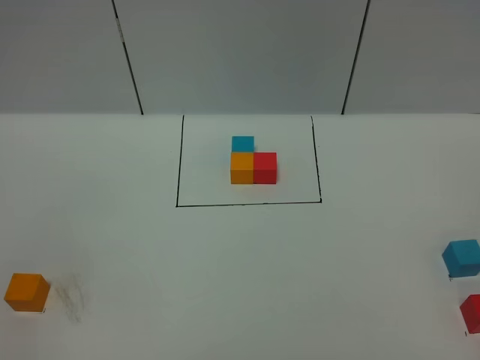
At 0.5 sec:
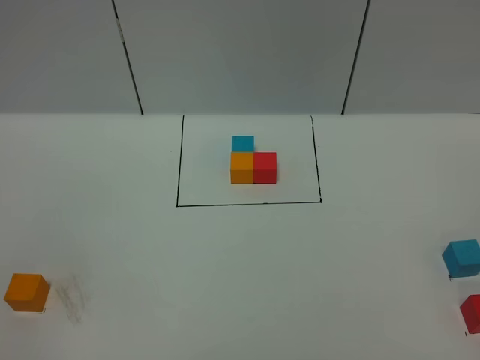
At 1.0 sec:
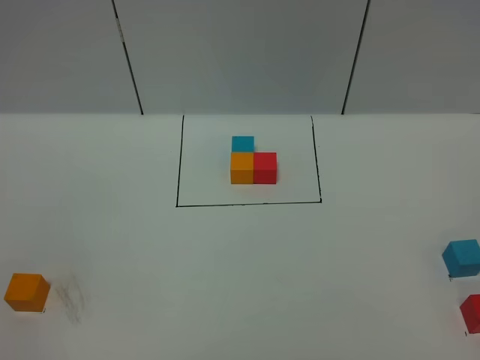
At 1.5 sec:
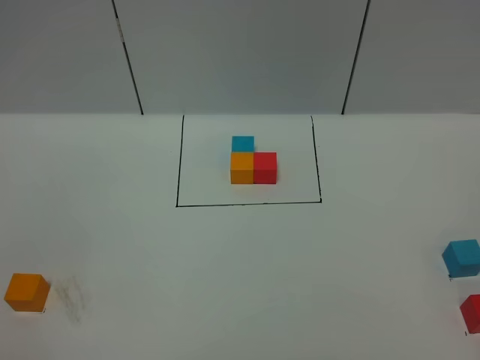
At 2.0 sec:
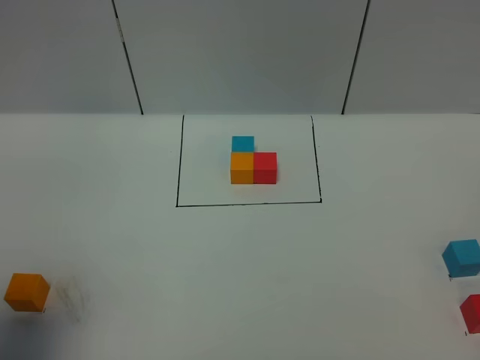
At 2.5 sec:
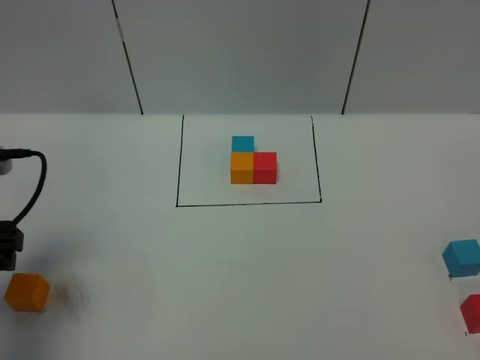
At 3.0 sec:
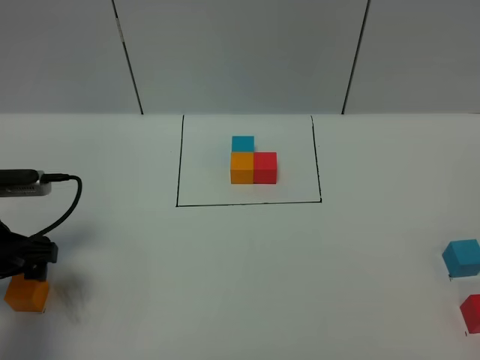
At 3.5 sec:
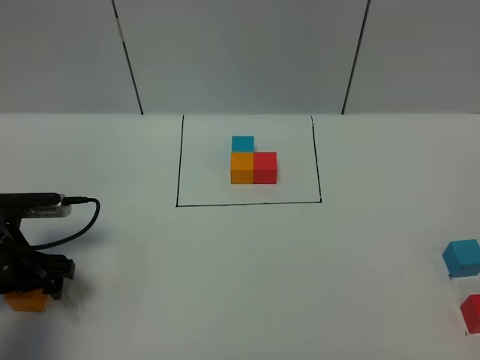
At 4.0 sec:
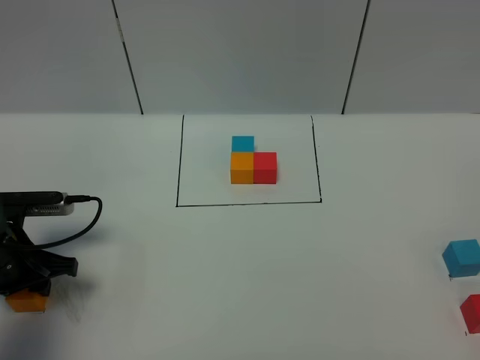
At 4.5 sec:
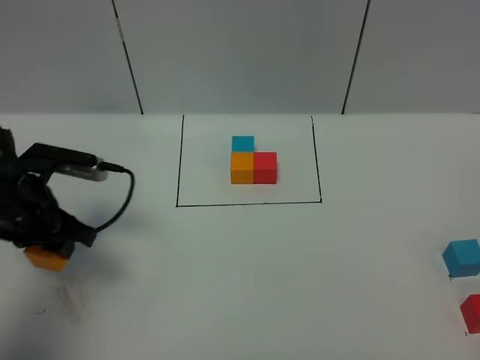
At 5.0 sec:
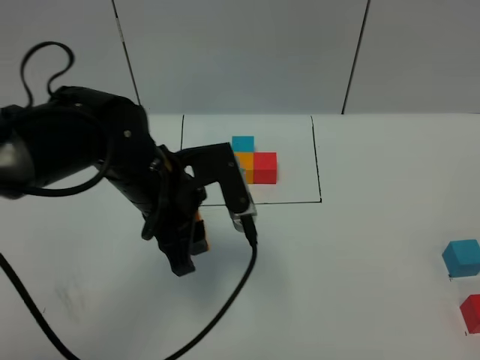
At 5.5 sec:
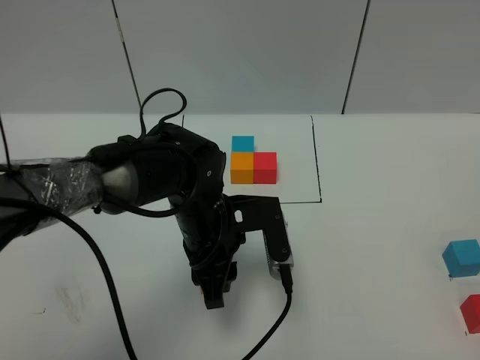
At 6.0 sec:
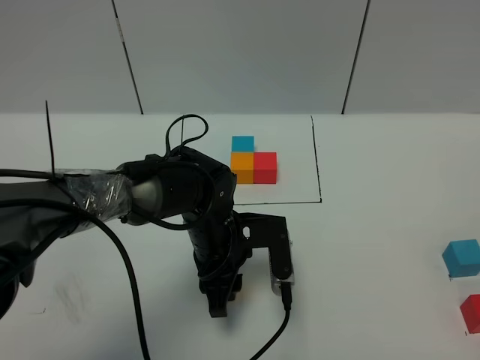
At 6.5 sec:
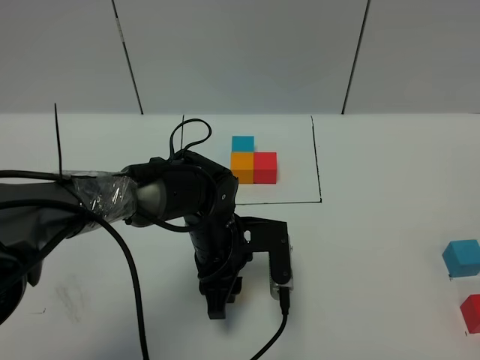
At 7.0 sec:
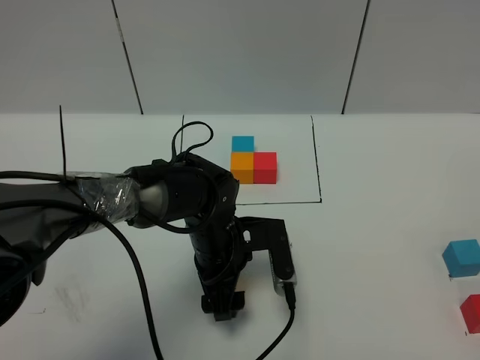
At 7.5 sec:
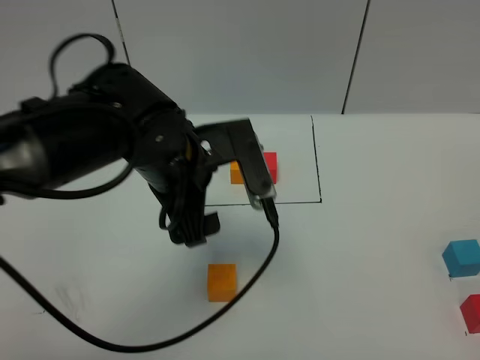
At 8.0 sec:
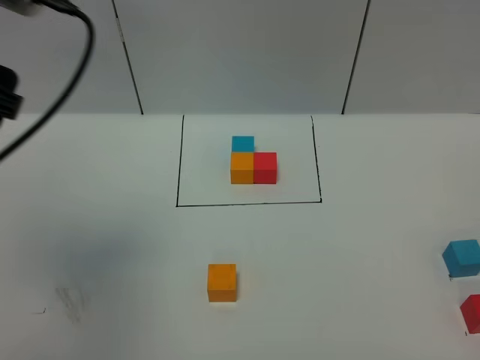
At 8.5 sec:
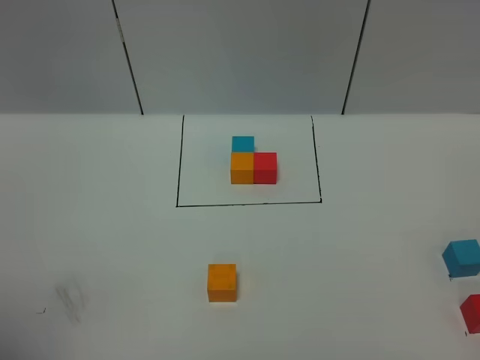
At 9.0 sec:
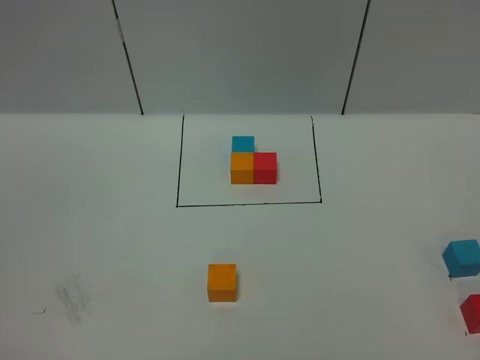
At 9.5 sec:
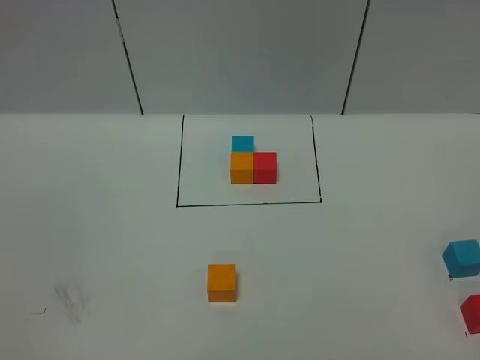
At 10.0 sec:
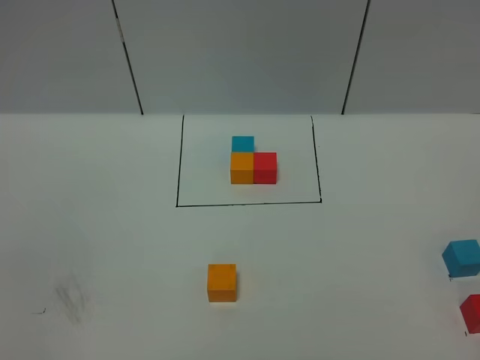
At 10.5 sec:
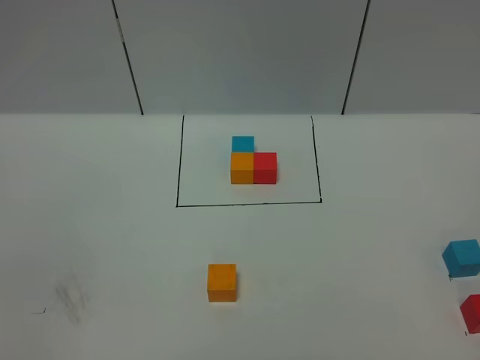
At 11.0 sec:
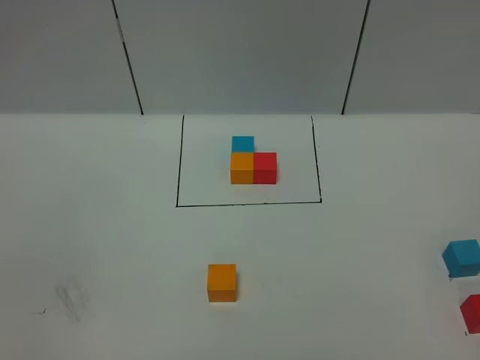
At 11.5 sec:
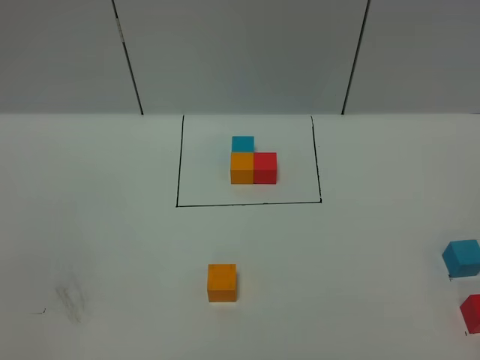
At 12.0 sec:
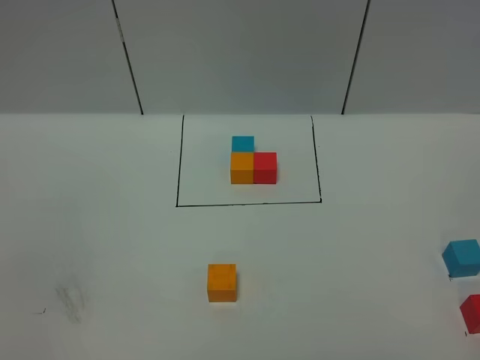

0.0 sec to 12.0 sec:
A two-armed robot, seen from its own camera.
Task of the whole recording: According to the building block template in front, assemble the scattered blocks together.
Step, 2.5 sec to 7.5 sec: Put the orange cube in the center of the table.
0.0 sec to 2.0 sec: The left gripper moves forward, about 15 cm, and opens up.
2.0 sec to 4.0 sec: The left gripper shifts about 25 cm downward and forward, and closes up.
4.0 sec to 6.0 sec: The left gripper goes some 25 cm to the right.
6.0 sec to 8.0 sec: The left gripper shifts about 35 cm upward and to the left, and opens up.
8.0 sec to 10.0 sec: The left gripper is displaced backward and downward by approximately 30 cm.

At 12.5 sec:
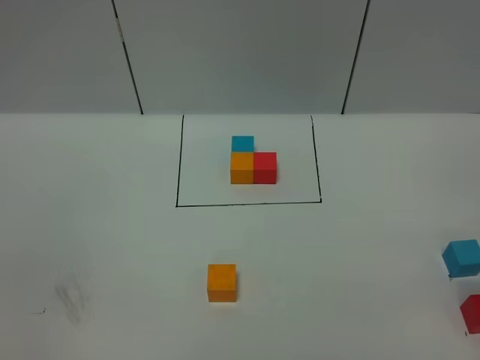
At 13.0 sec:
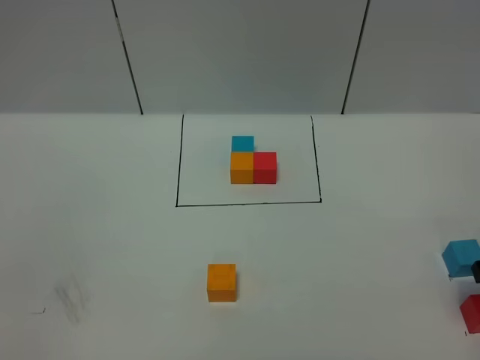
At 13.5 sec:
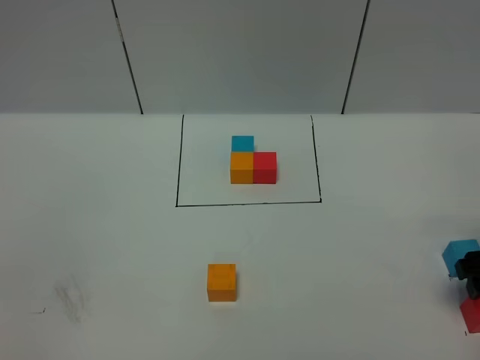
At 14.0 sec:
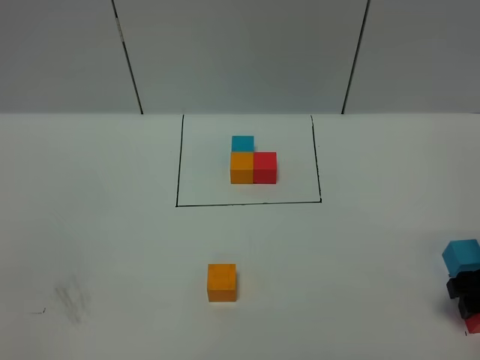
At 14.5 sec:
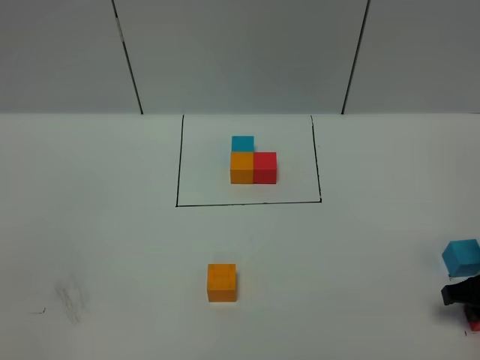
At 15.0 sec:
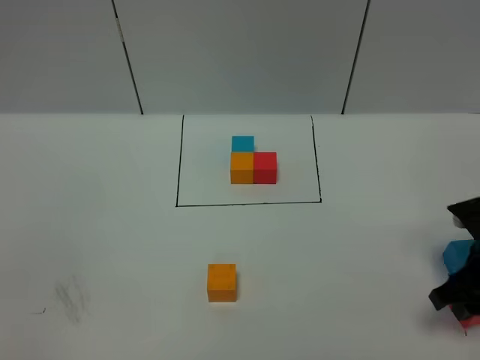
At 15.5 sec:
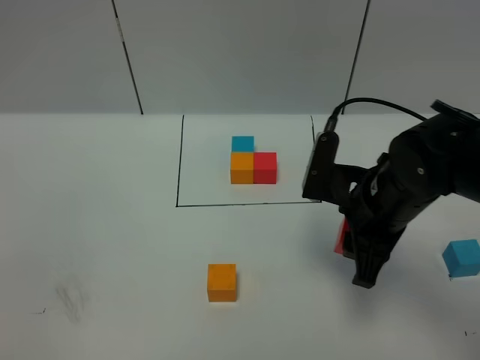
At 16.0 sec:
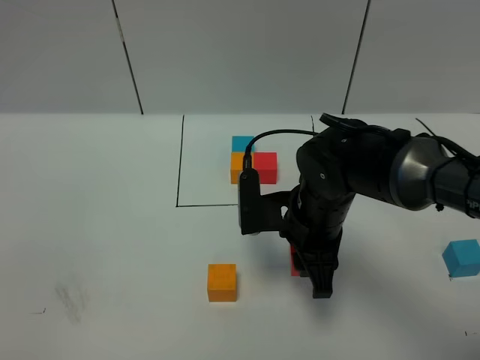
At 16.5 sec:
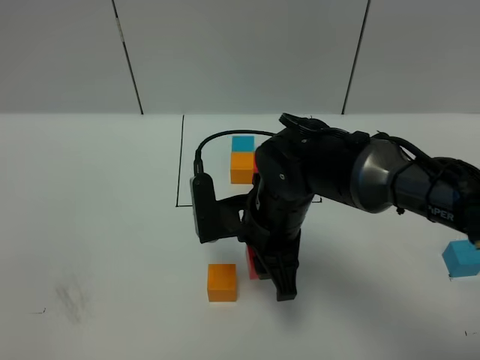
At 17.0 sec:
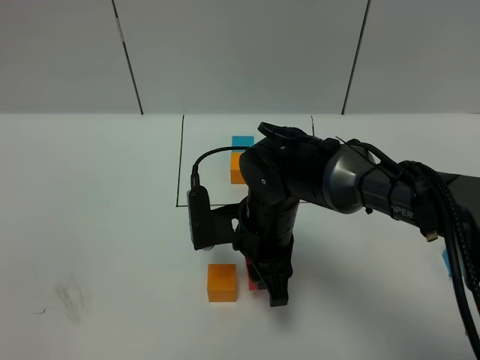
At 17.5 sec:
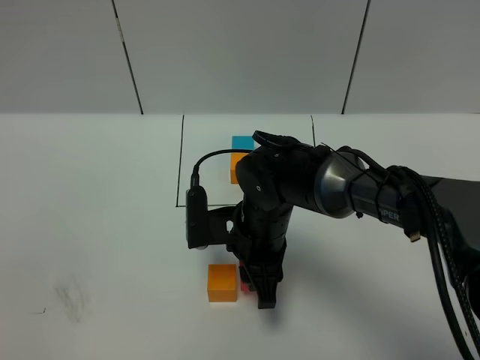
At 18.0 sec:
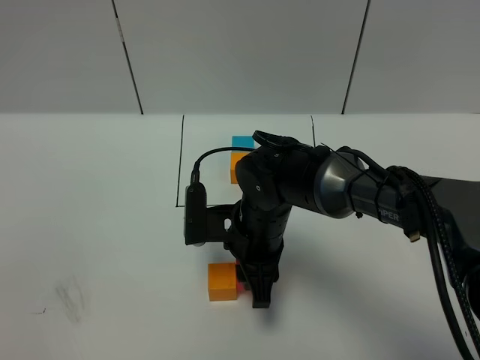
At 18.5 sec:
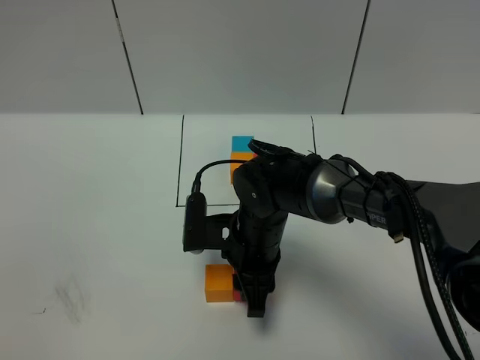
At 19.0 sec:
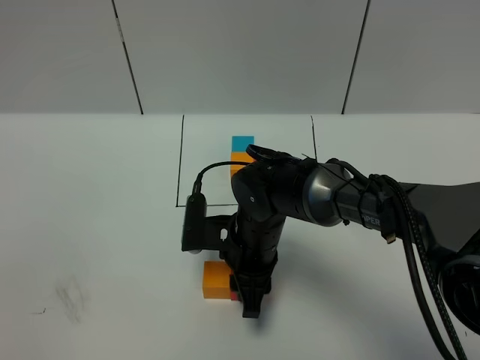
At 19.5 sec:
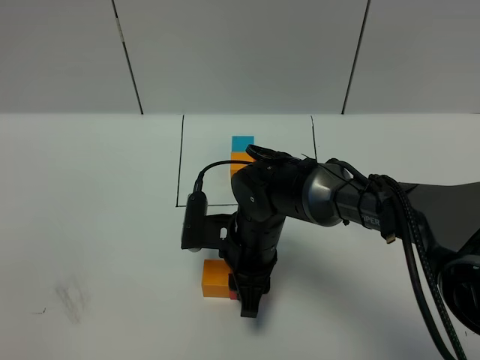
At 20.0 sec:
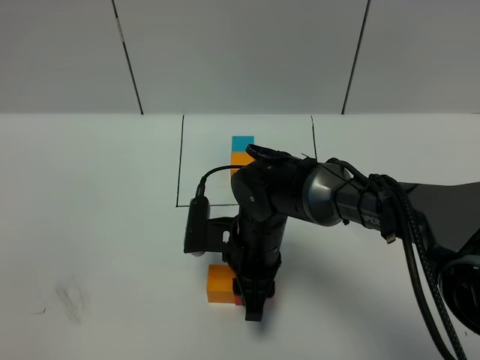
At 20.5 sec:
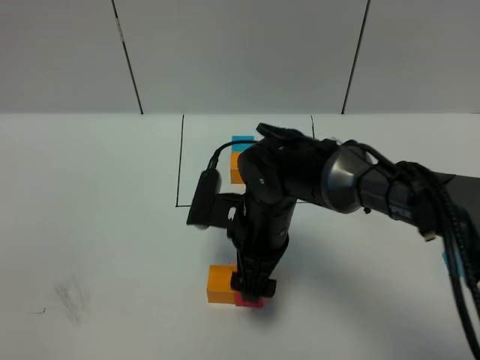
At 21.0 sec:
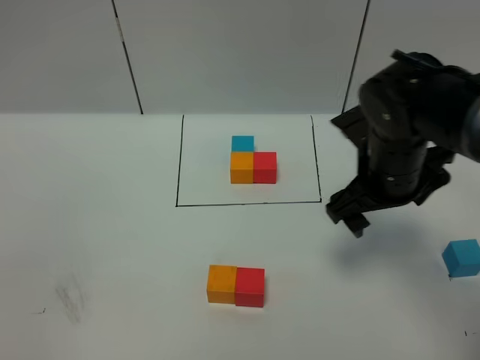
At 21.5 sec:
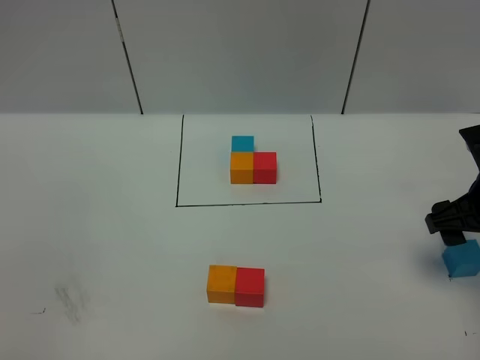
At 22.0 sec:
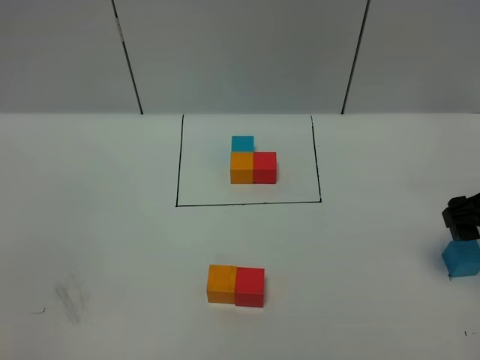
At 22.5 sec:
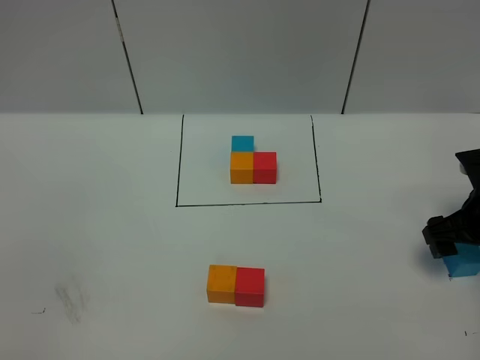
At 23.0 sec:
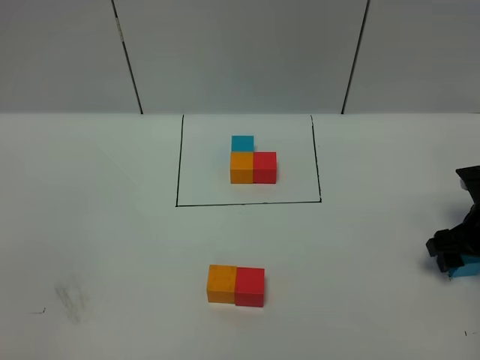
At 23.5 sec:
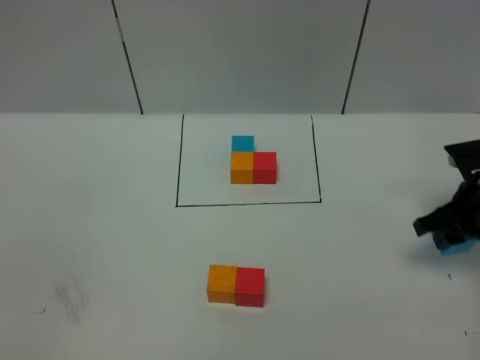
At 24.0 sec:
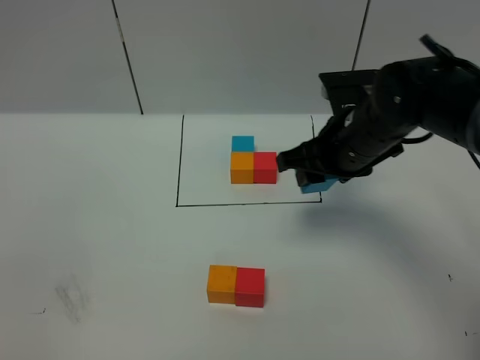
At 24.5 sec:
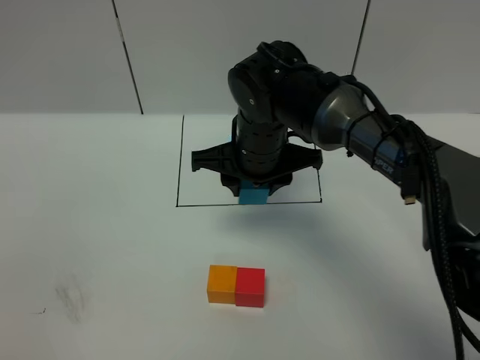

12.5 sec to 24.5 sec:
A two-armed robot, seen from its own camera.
Task of the whole recording: According to the building block template in front, assemble the scattered blocks together.
Step, 12.5 sec to 21.0 sec: Put the red cube on the right of the orange cube.
12.5 sec to 14.5 sec: The right gripper moves downward, roughly 15 cm, and closes.
14.5 sec to 16.5 sec: The right gripper goes approximately 30 cm to the left.
16.5 sec to 18.5 sec: The right gripper travels downward by about 5 cm.
18.5 sec to 20.5 sec: The right gripper opens its fingers.
20.5 sec to 22.5 sec: The right gripper is displaced to the right by approximately 30 cm.
22.5 sec to 24.5 sec: The right gripper shifts some 30 cm to the left, and closes up.

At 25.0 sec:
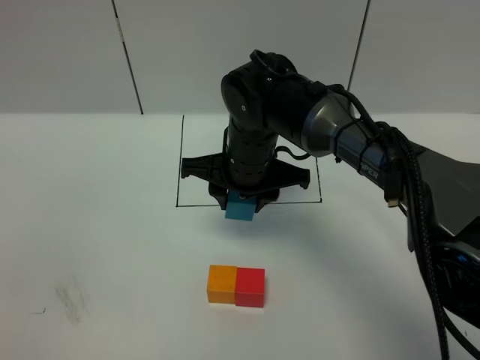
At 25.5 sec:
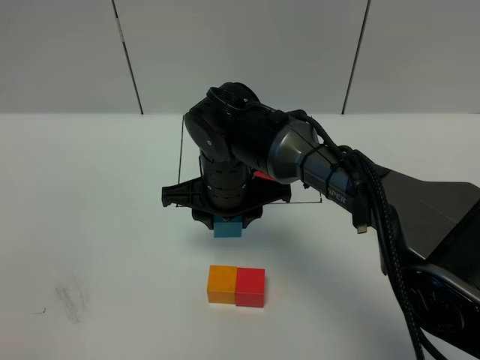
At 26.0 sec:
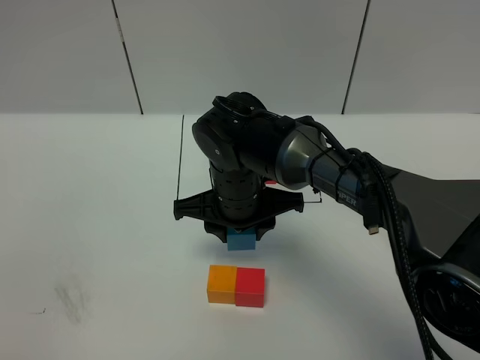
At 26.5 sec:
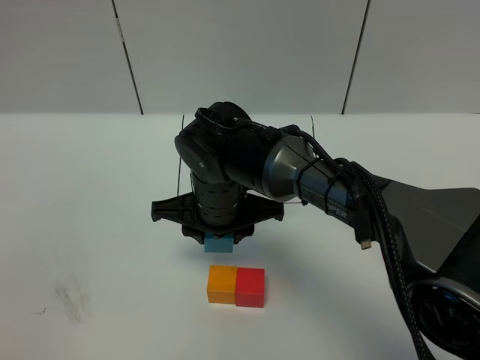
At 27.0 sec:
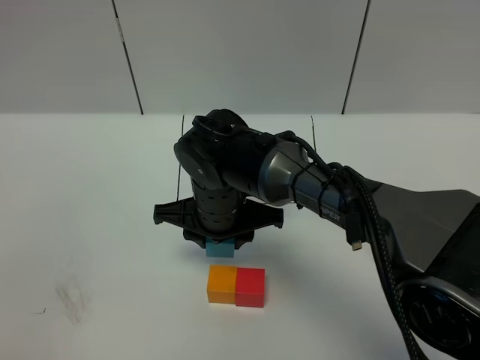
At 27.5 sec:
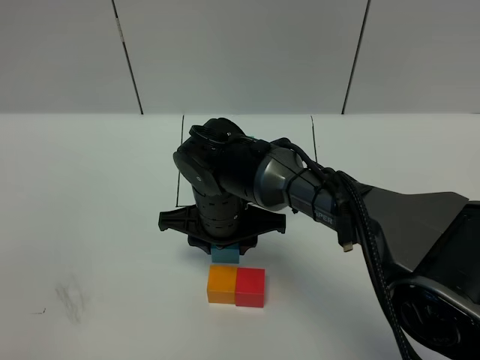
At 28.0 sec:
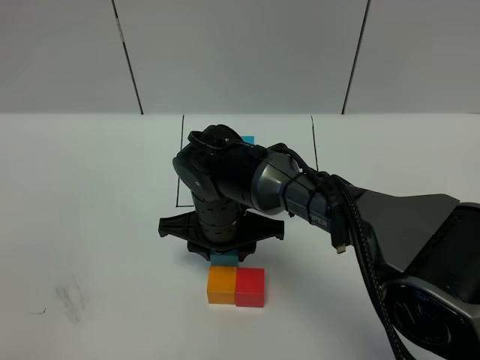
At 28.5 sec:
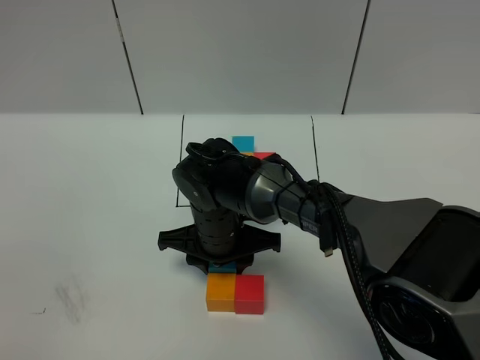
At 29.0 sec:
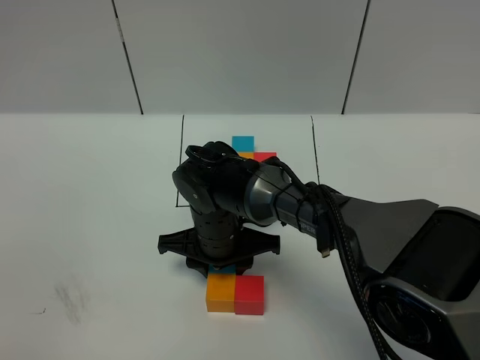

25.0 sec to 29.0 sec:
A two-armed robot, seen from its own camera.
Task of the whole recording: According to the building block template in front, assemble the scattered blocks together.
25.0 sec to 27.0 sec: The right gripper shifts by roughly 5 cm.
27.0 sec to 29.0 sec: The right gripper is displaced downward by about 5 cm.
